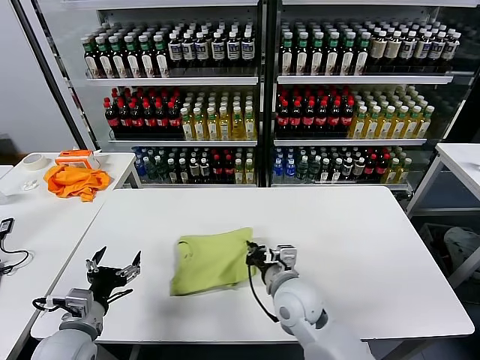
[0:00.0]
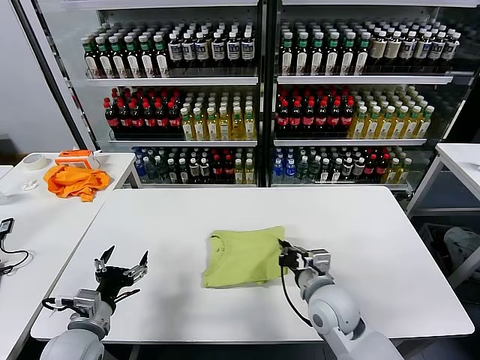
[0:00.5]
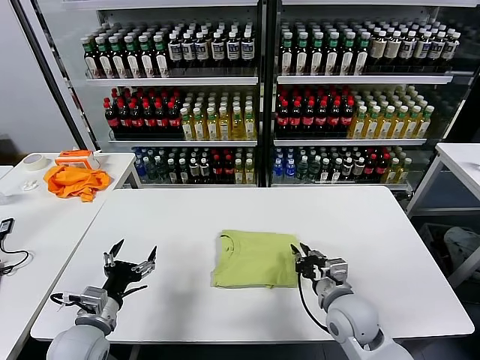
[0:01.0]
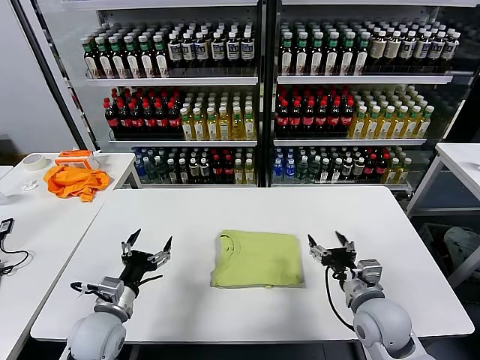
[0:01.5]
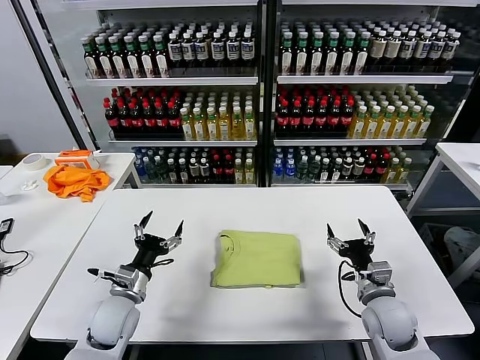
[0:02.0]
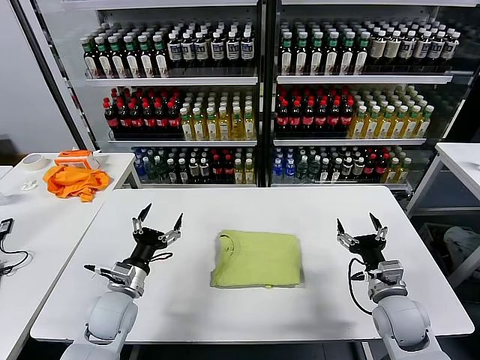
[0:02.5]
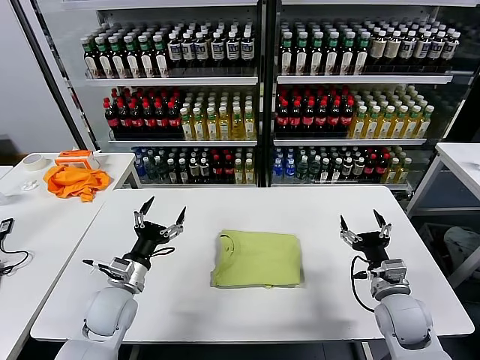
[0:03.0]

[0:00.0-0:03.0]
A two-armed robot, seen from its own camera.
Task of the whole recording: fold and organize the clothes.
0:00.0 to 0:01.5: The left gripper shifts by roughly 5 cm. Meanwhile the right gripper is displaced to the right by some 15 cm, and opens its fingers.
0:01.5 to 0:03.0: The left gripper heads forward, covering about 5 cm. The right gripper travels to the right by roughly 5 cm.
